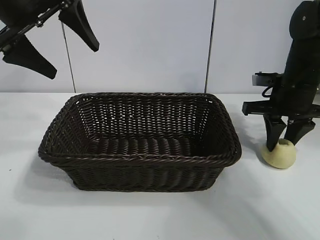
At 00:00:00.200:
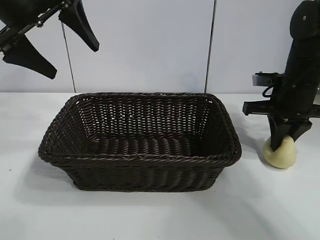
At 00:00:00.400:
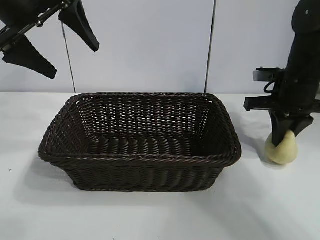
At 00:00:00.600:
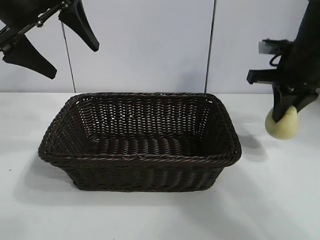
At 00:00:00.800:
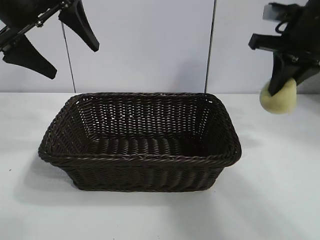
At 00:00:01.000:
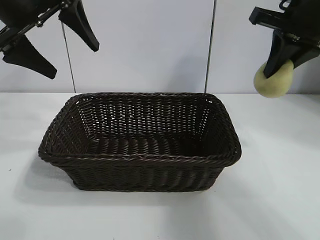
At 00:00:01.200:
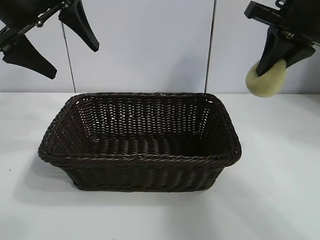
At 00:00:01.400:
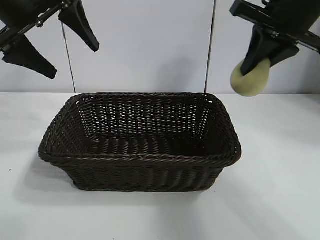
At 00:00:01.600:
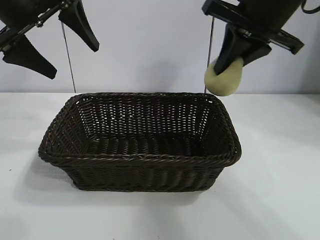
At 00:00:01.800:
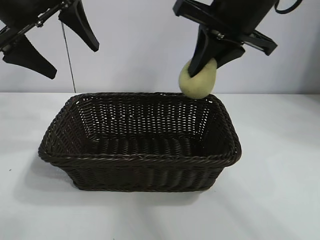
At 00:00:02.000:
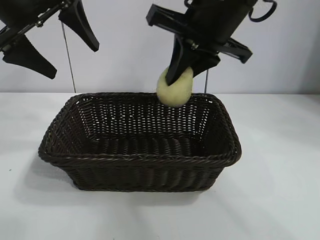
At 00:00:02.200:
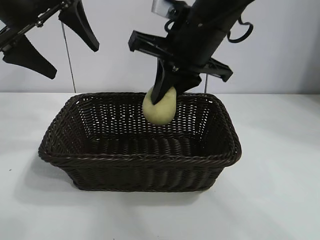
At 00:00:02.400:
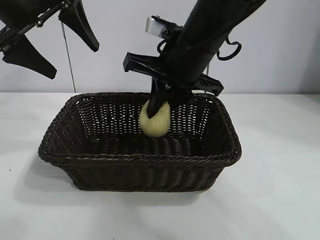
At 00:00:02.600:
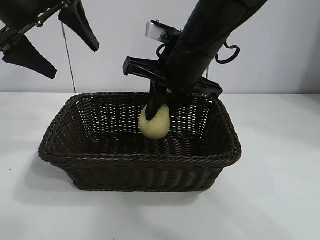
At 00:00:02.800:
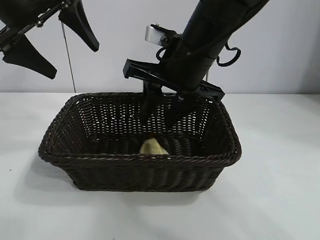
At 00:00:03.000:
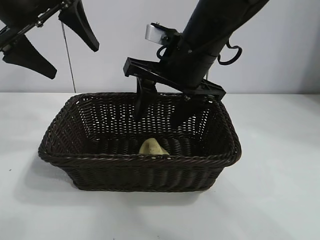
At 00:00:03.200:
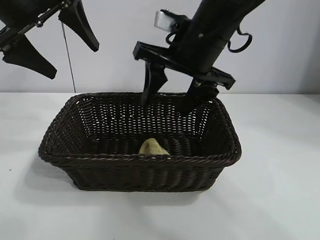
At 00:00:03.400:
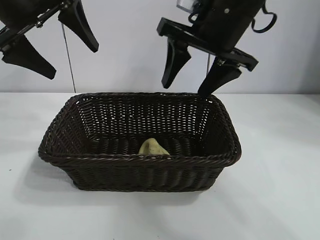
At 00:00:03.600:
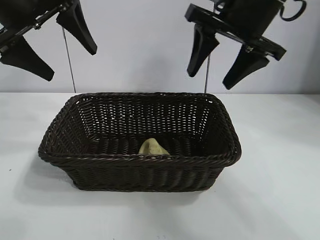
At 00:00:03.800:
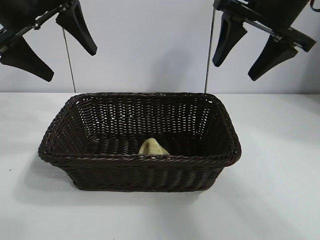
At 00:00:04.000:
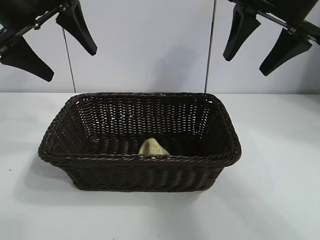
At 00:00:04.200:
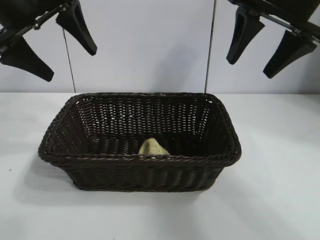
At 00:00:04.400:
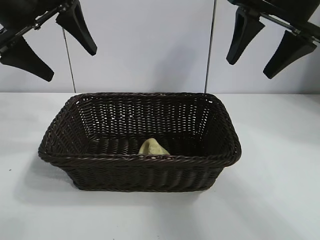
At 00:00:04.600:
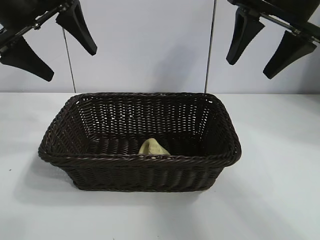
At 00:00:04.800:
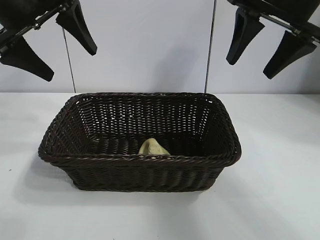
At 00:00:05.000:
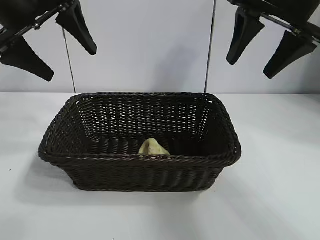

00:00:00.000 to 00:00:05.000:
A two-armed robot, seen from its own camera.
Task of the whole recording: pick up the egg yolk pastry and put it into the basket.
Step, 00:00:00.400 to 00:00:03.000: Place the egg yolk pastry in the basket with right gripper.
